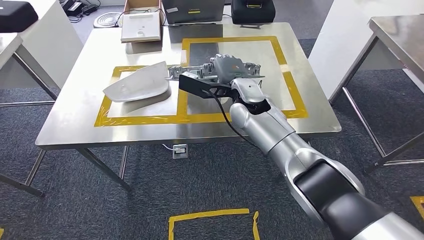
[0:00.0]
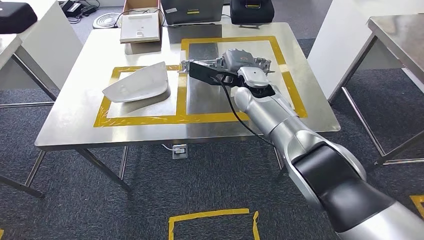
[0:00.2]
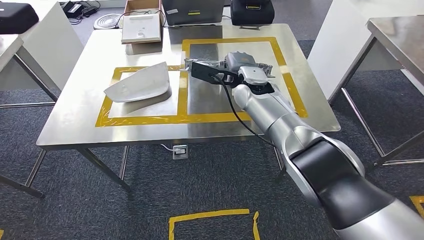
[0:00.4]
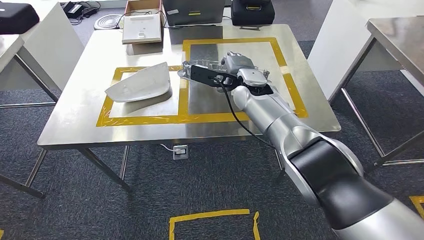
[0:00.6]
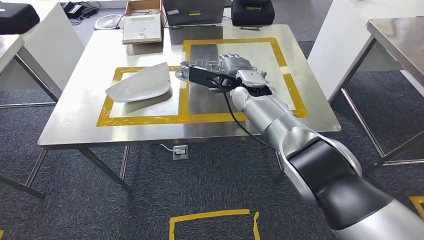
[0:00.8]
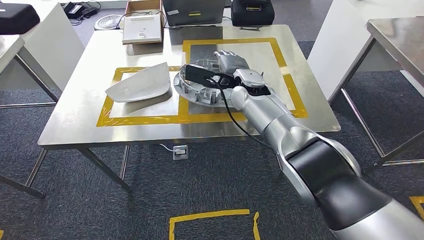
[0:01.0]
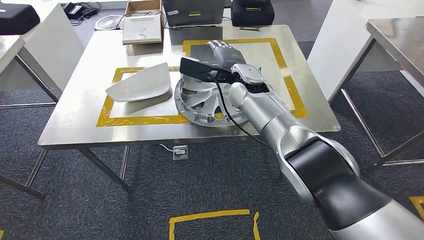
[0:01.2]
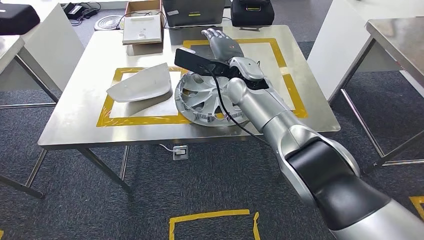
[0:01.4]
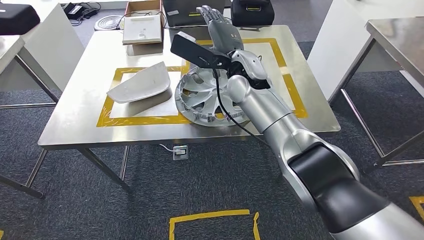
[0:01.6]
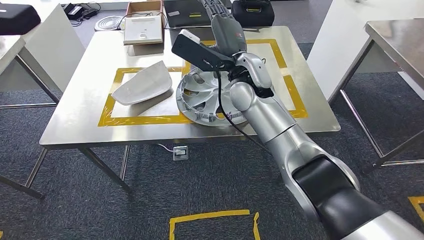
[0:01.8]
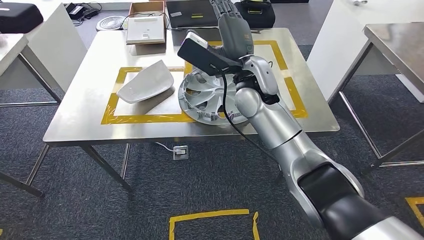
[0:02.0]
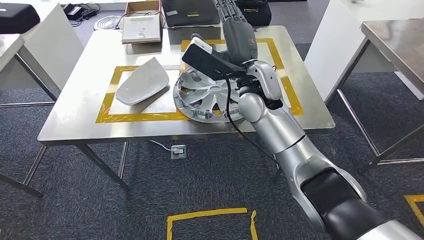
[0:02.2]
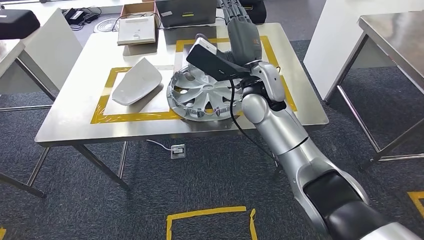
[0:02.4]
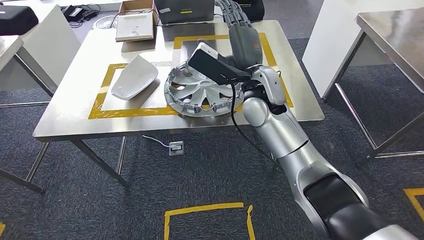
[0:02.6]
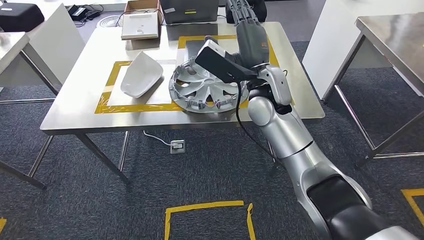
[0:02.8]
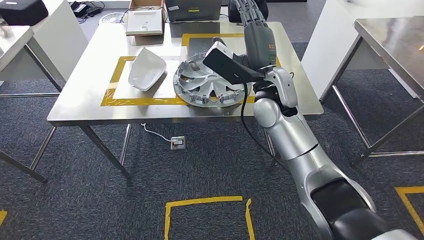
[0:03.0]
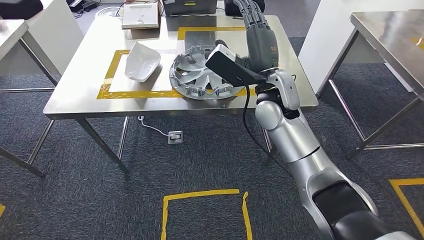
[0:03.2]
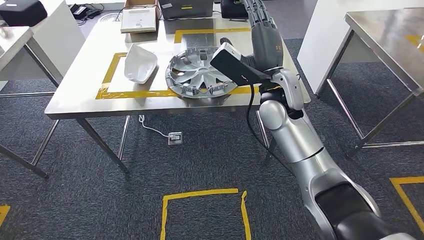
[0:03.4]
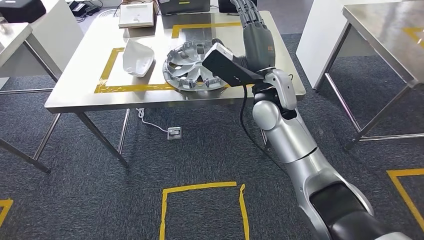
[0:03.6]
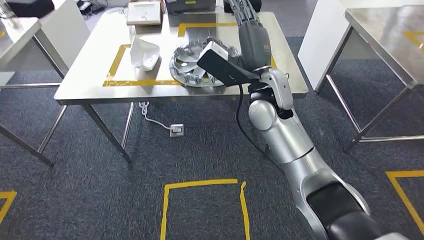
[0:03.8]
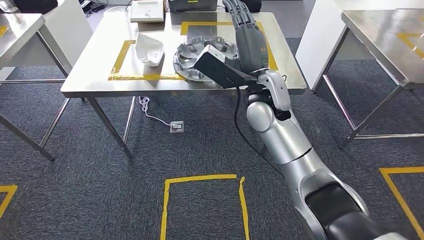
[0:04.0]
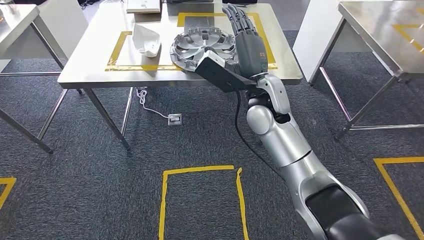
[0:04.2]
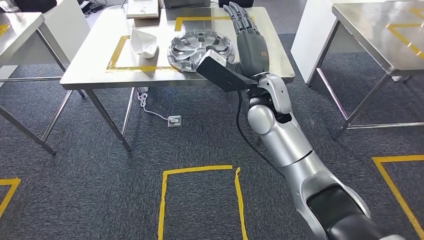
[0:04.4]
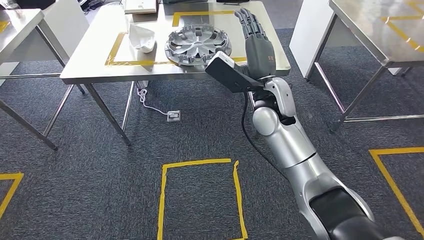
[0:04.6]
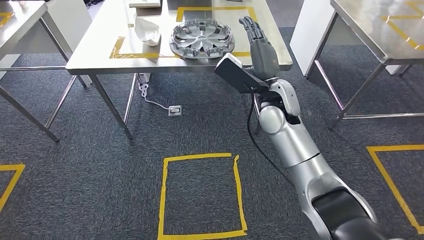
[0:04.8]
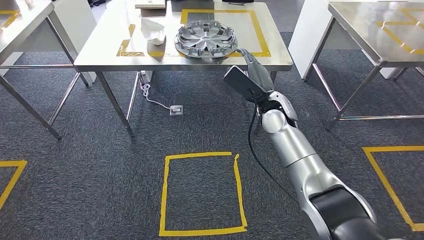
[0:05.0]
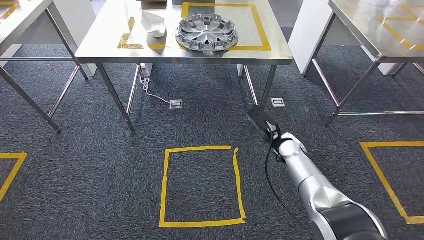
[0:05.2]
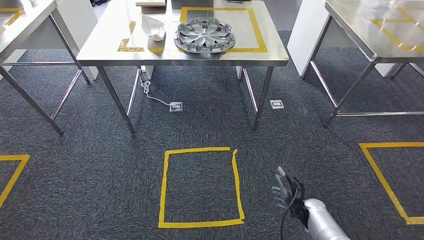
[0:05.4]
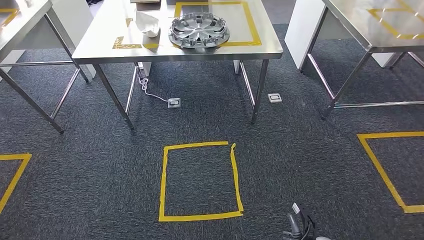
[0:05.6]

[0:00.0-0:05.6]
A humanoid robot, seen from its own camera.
Step, 0:00.0 to 0:02.0: Insert the small parts into the corresponding holes on the workbench.
Step, 0:02.6 to 0:05.4: Move to the initial position of the workbench.
